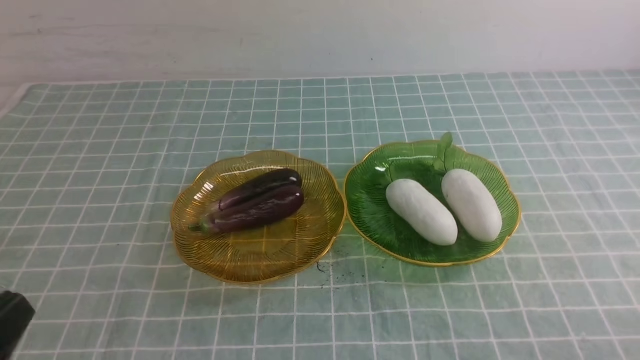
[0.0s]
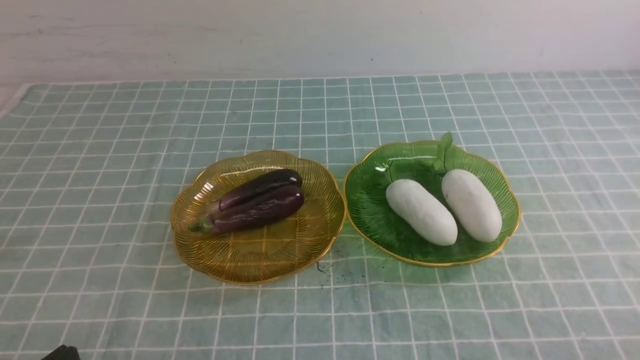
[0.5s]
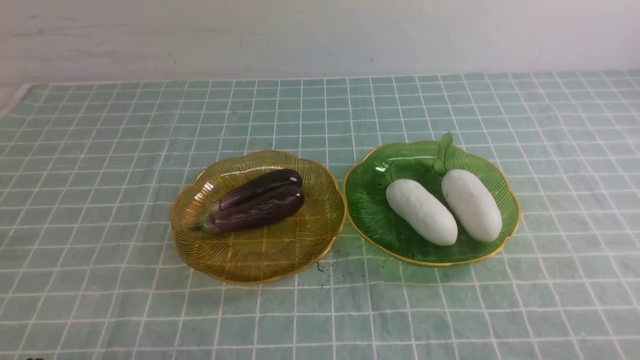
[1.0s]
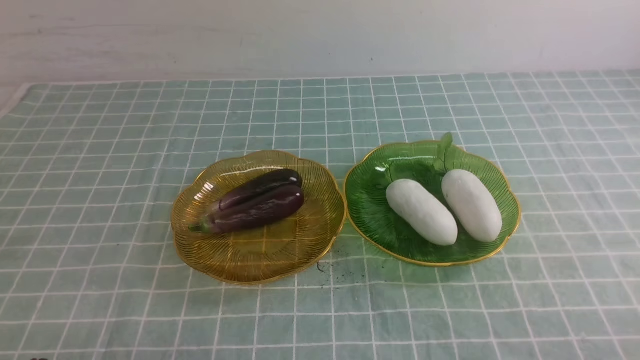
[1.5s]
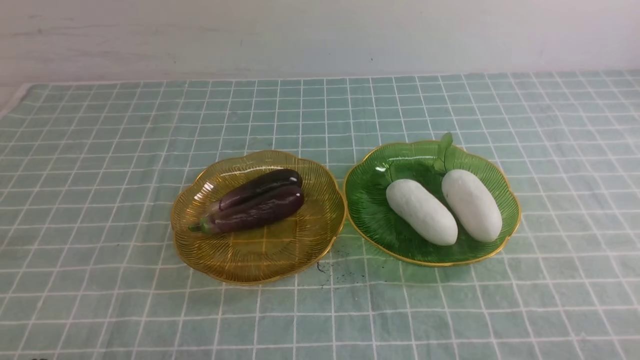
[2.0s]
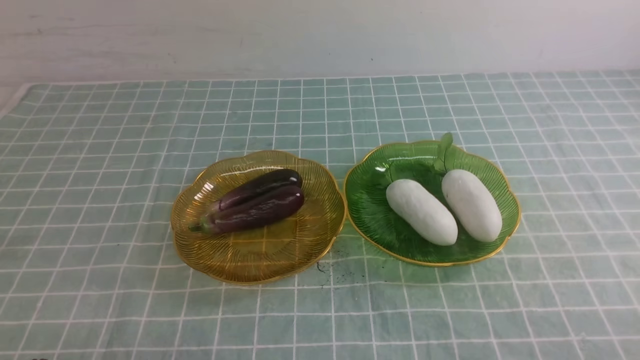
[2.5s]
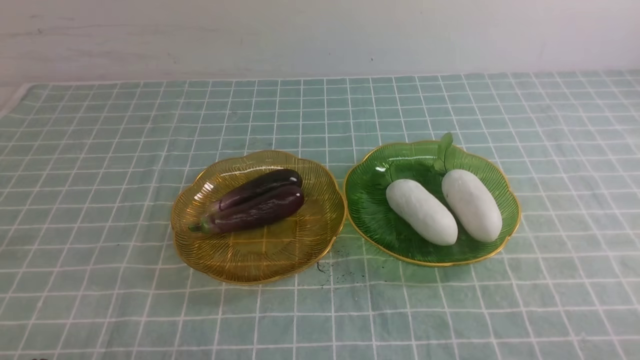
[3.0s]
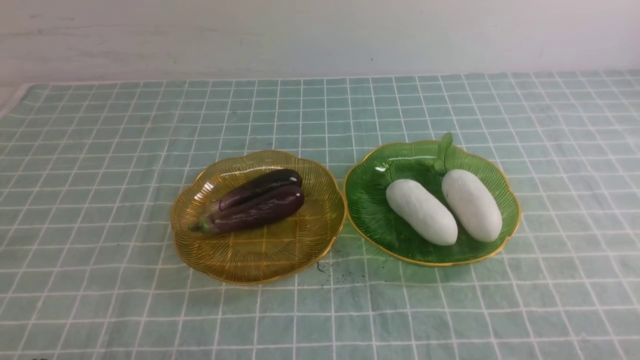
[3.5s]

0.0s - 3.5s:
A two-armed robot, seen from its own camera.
0.0s - 2.0s: The left gripper is displaced downward by some 10 cm.
2.0s - 3.5s: Both grippers stay put.
